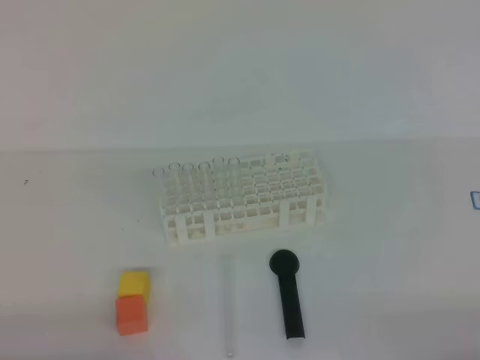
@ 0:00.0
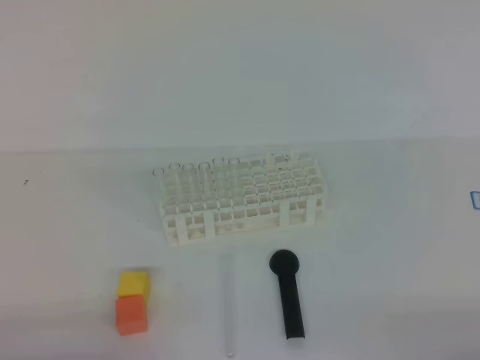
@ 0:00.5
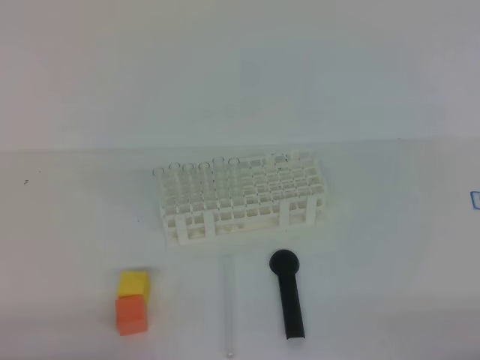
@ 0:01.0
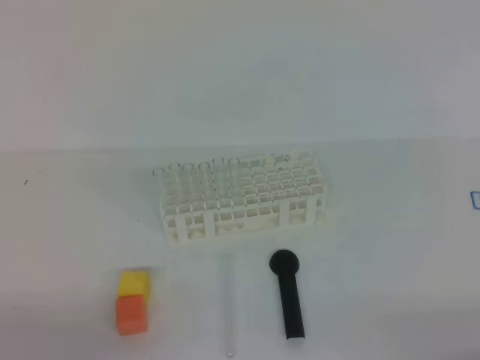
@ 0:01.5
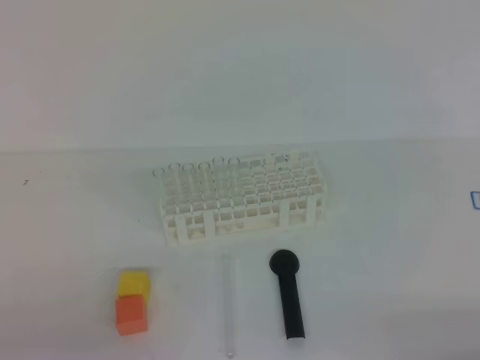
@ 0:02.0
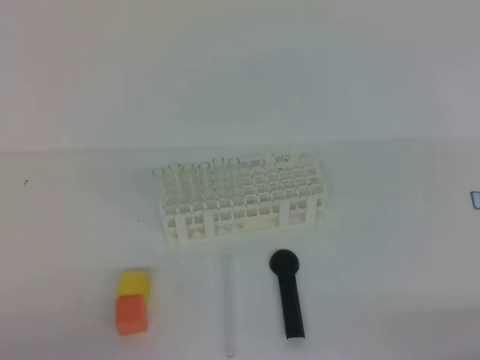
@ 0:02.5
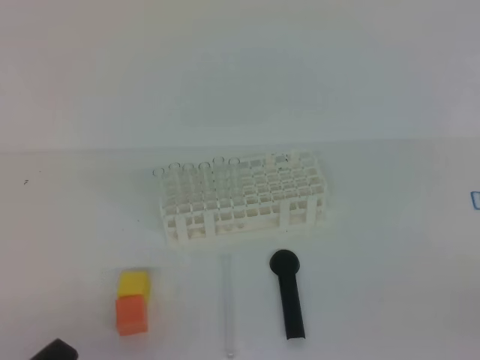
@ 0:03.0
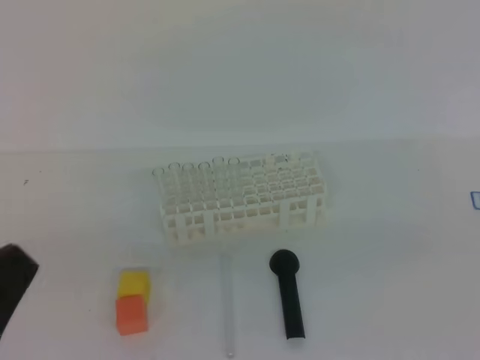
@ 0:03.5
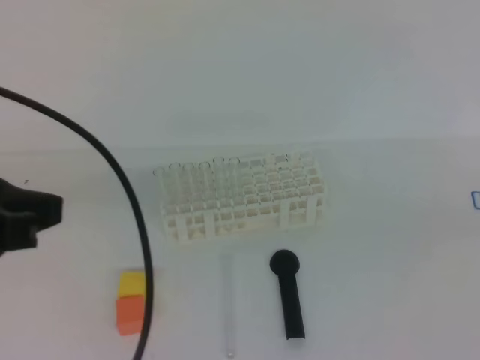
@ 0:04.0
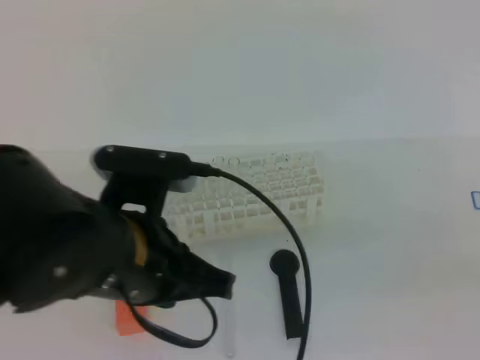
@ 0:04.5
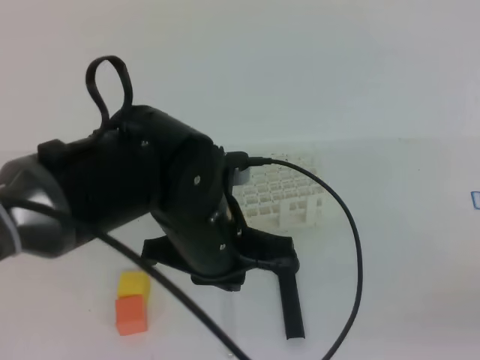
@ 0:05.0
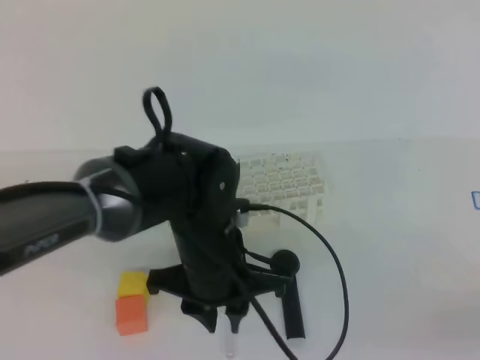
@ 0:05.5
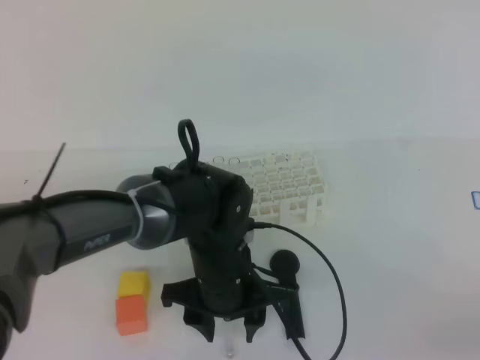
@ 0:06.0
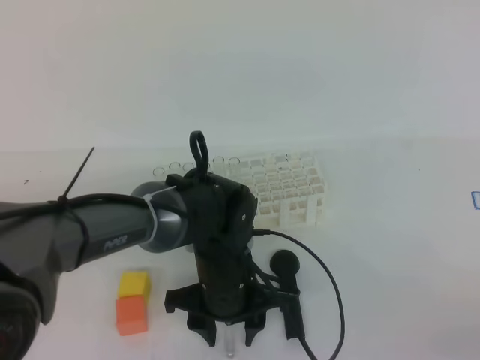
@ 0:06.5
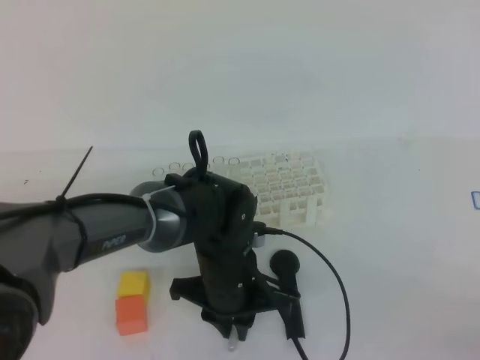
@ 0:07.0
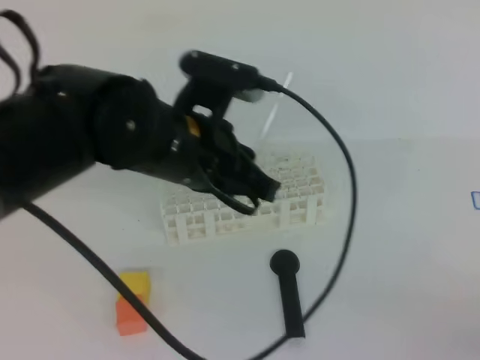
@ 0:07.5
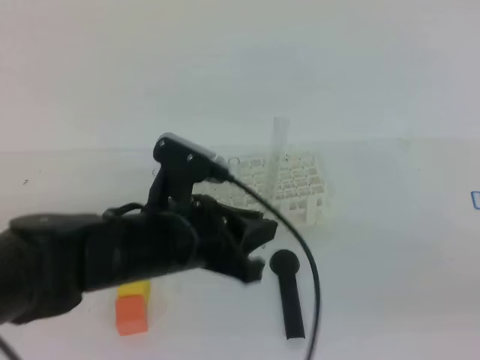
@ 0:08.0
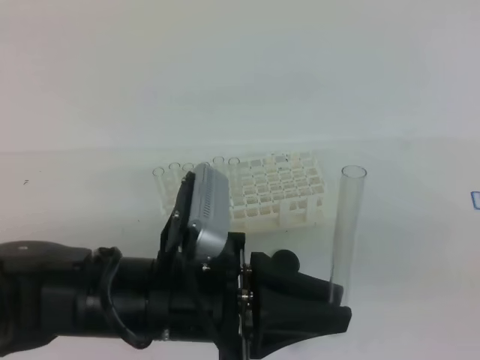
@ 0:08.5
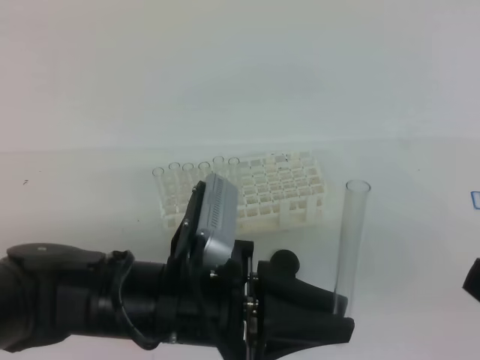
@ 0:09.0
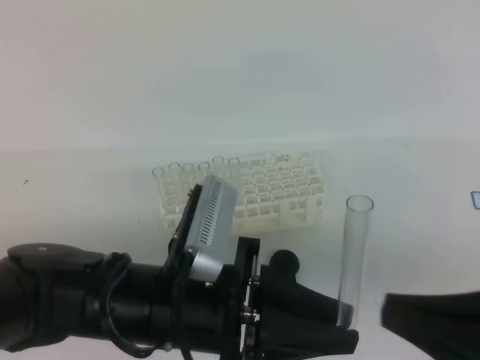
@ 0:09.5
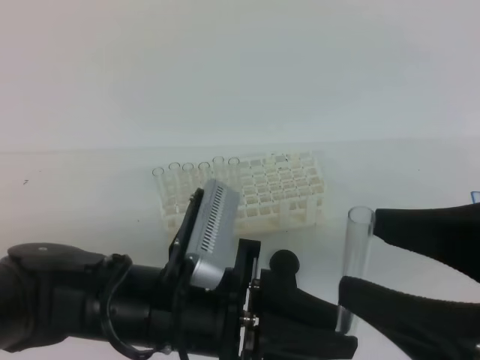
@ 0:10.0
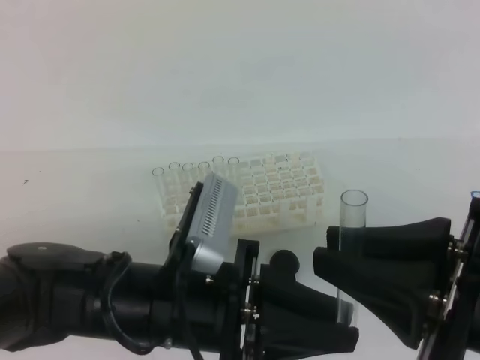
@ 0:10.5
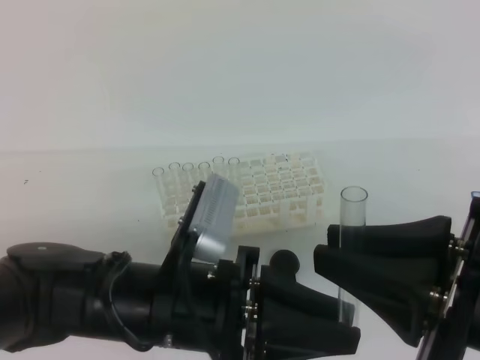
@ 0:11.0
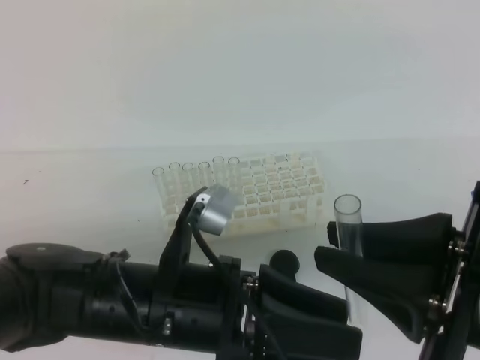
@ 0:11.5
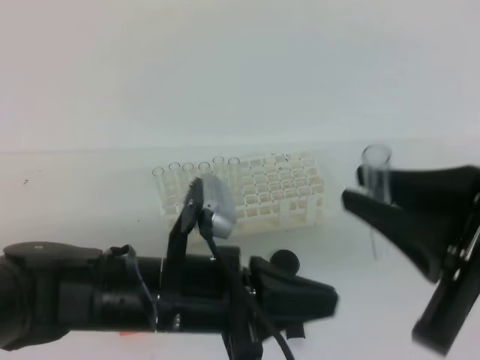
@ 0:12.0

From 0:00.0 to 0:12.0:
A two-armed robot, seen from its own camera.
From 0:02.0 to 0:04.0: The left gripper heads upward and forward, covering approximately 20 cm.
From 0:04.0 to 0:06.0: The left gripper heads downward, to the right and forward, covering some 30 cm, and opens its fingers. The right gripper is displaced downward by some 10 cm.
From 0:06.0 to 0:08.0: The left gripper travels upward and to the left by approximately 10 cm, and closes.
From 0:08.0 to 0:10.0: The right gripper travels to the left and upward by approximately 10 cm, and opens its fingers. Meanwhile the left gripper shifts roughly 10 cm backward.
From 0:10.0 to 0:12.0: The right gripper closes its fingers. The left gripper opens and closes again.

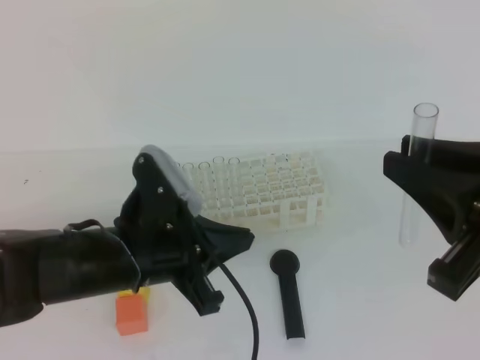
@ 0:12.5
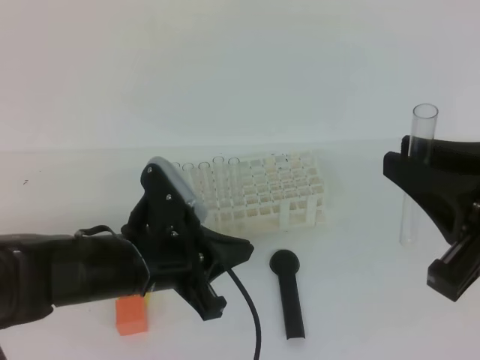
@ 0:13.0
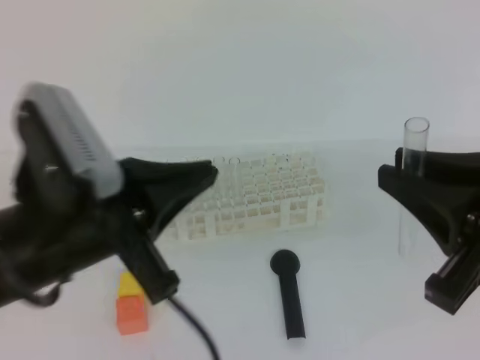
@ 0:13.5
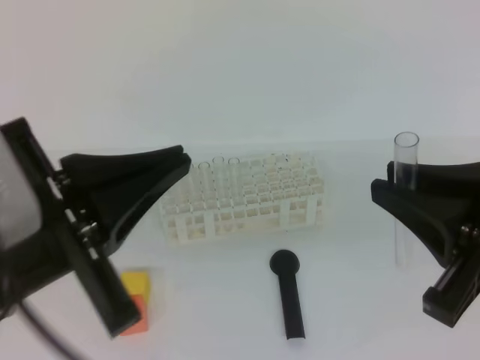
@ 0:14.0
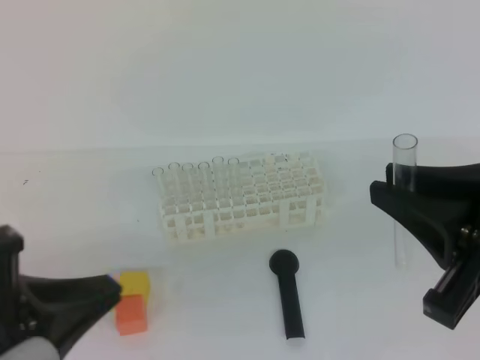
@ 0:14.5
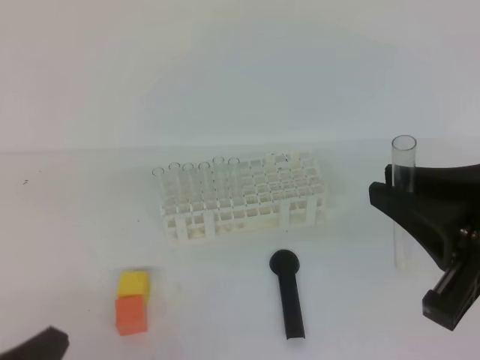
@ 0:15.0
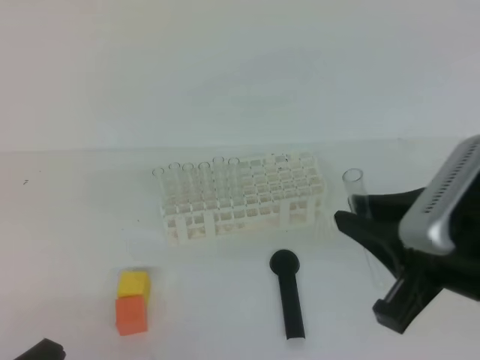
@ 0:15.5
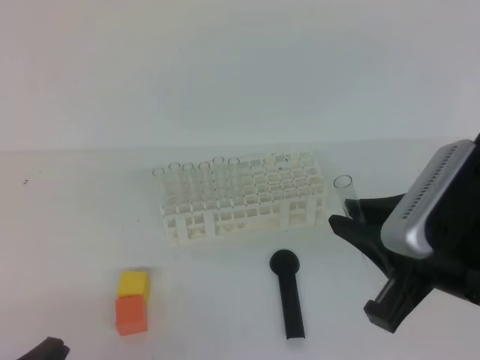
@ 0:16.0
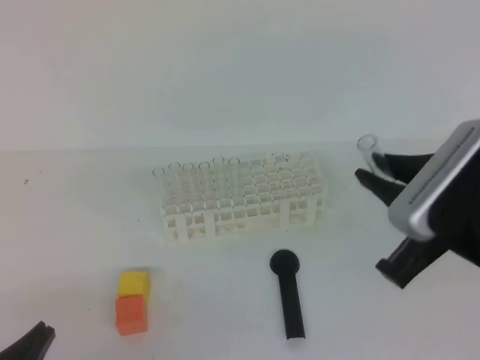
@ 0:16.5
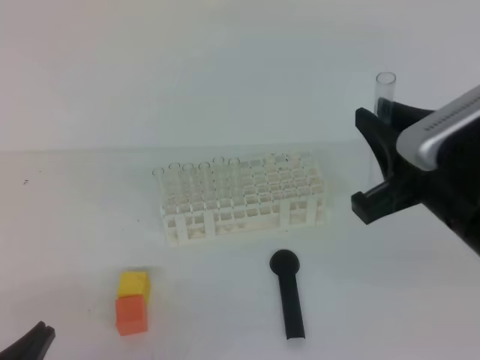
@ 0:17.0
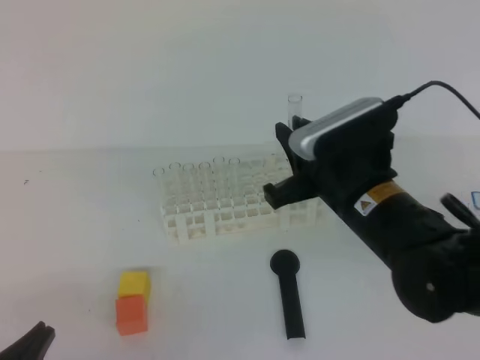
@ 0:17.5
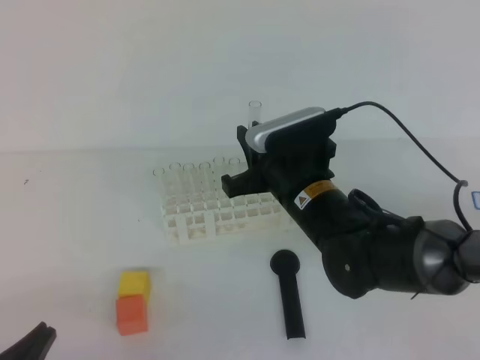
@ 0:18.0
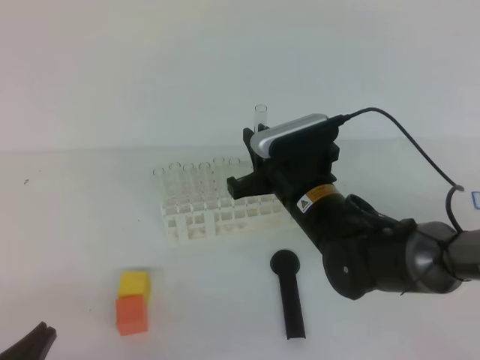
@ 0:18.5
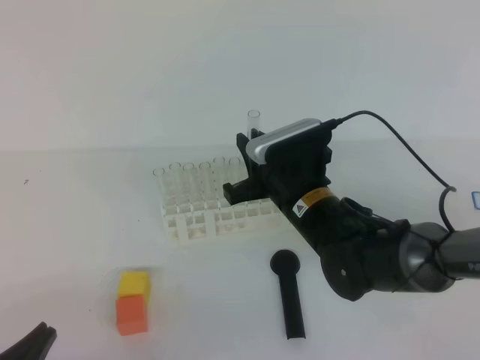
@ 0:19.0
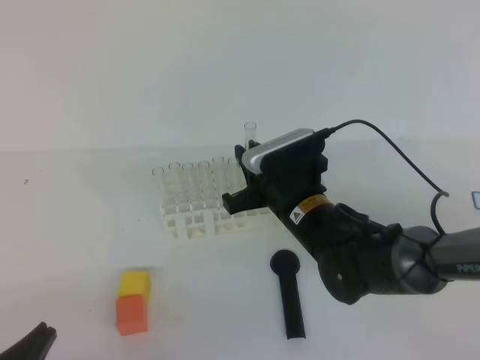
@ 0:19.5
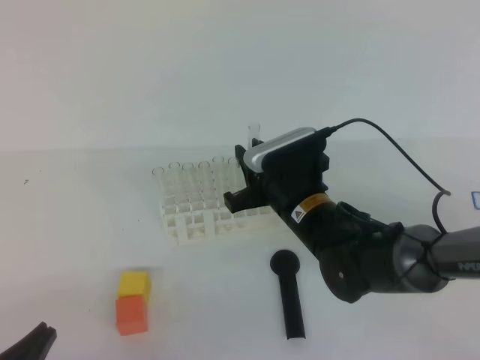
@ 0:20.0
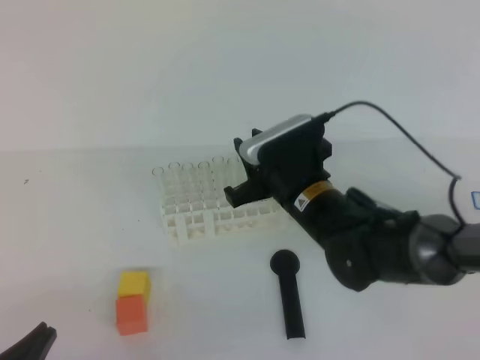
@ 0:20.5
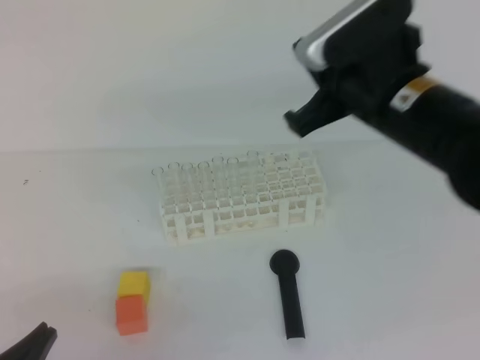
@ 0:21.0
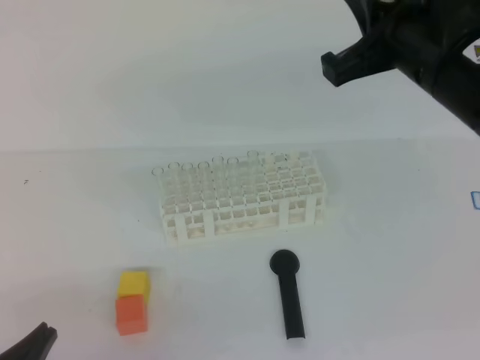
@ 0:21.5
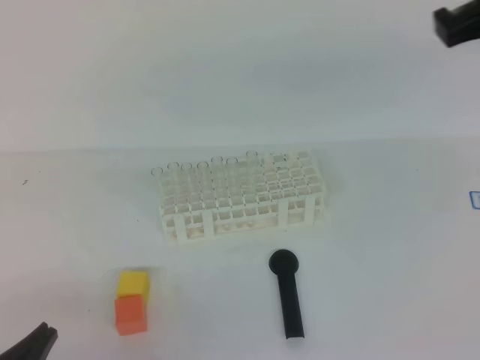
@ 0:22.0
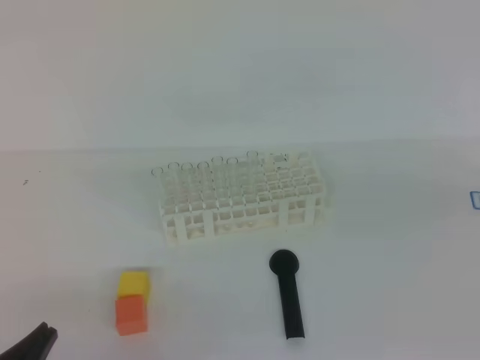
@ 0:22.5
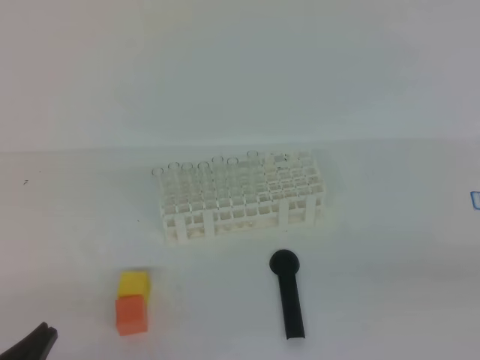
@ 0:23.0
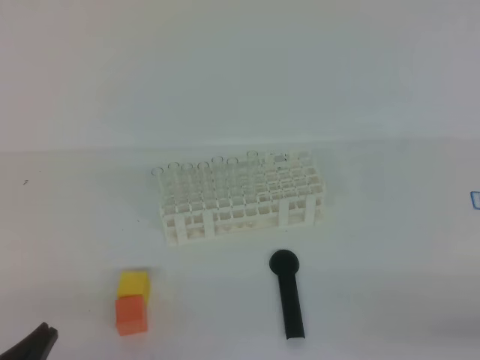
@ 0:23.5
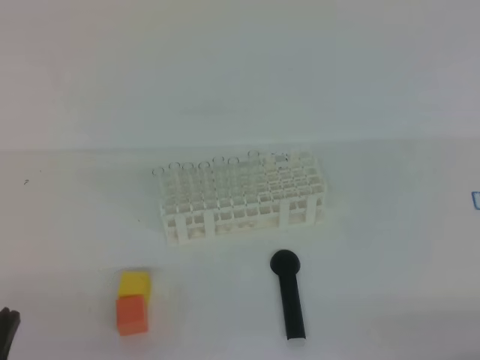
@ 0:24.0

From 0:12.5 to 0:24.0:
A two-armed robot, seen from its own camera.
From 0:12.5 to 0:14.5: The left gripper goes approximately 20 cm backward, to the left and upward.
From 0:14.5 to 0:16.5: The right gripper ends up about 5 cm from where it was. The left gripper is displaced downward by some 10 cm.
From 0:16.5 to 0:18.5: The right gripper travels forward, downward and to the left by about 25 cm.
From 0:18.5 to 0:20.0: The grippers make only small movements.
From 0:20.0 to 0:22.0: The right gripper is displaced upward and to the right by some 30 cm, and closes up.
From 0:22.0 to 0:24.0: The right gripper goes about 35 cm downward, backward and to the right.

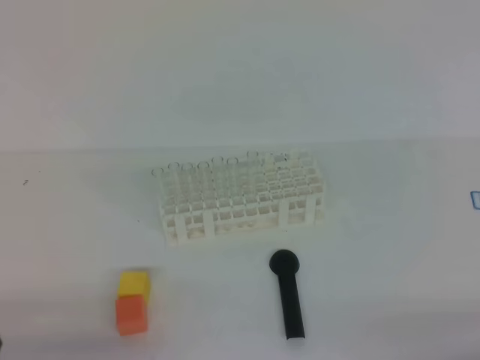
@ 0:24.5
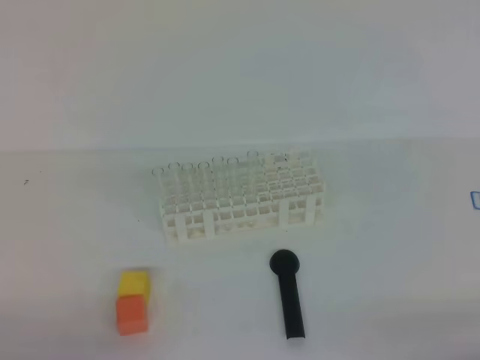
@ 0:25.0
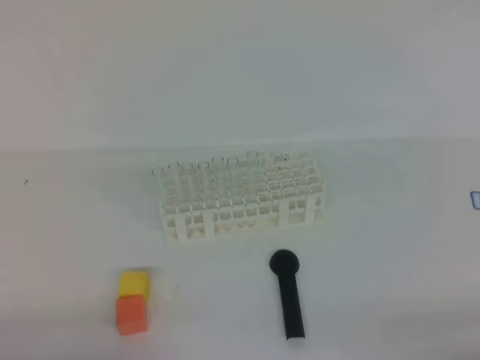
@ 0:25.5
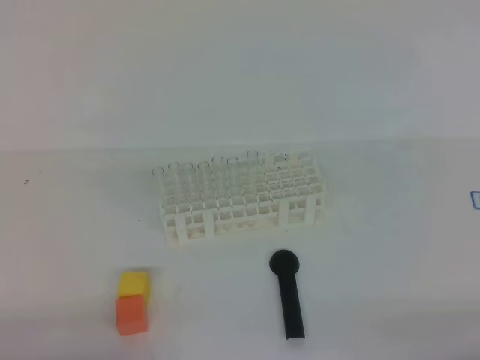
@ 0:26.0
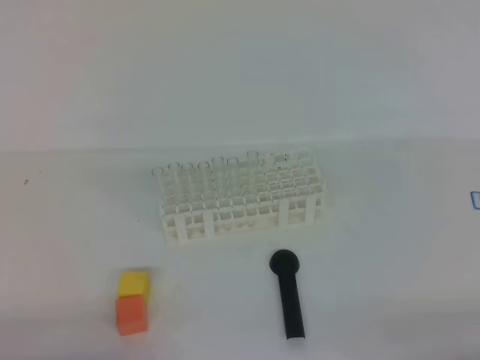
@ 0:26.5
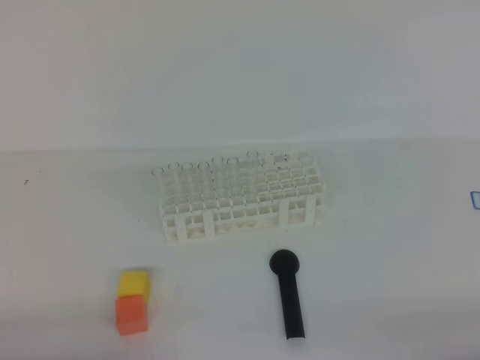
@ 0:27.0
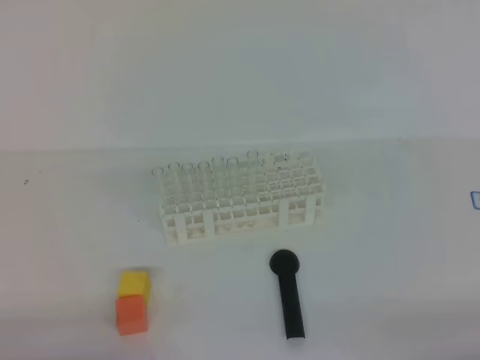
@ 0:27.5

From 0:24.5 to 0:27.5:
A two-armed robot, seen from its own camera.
From 0:26.0 to 0:27.5: The two grippers keep their place.
